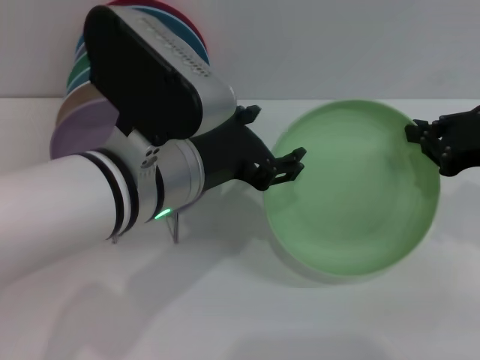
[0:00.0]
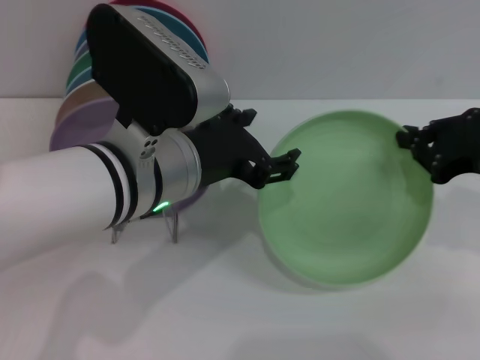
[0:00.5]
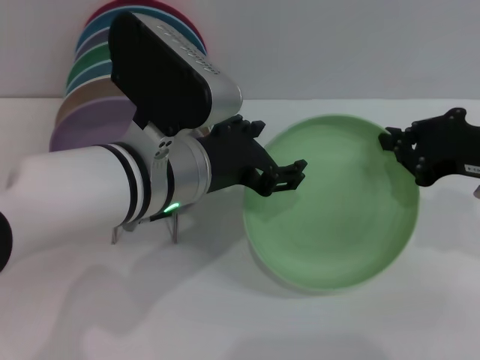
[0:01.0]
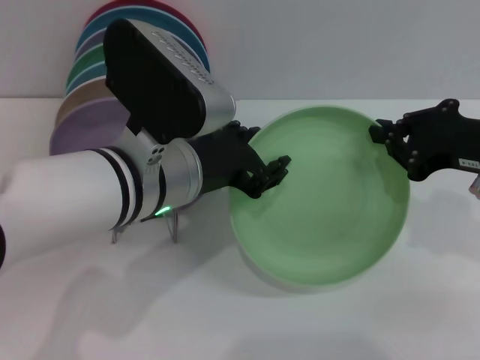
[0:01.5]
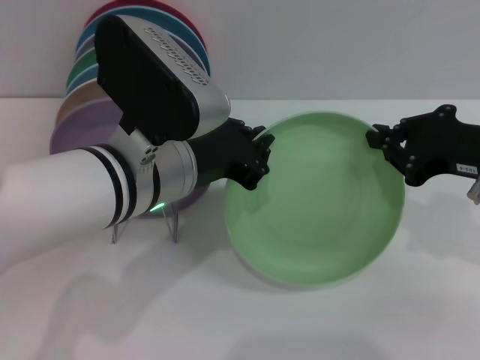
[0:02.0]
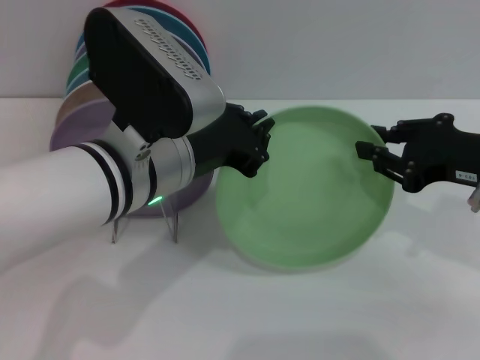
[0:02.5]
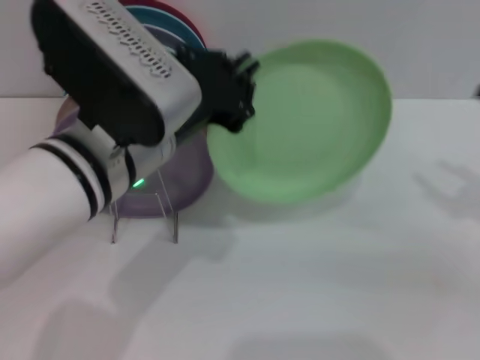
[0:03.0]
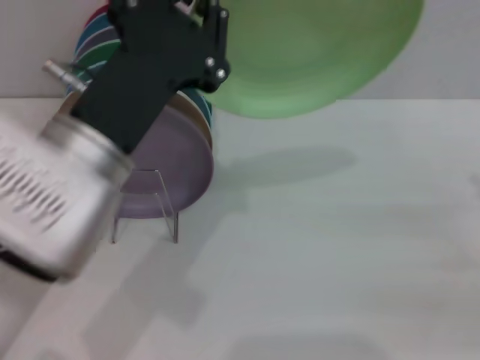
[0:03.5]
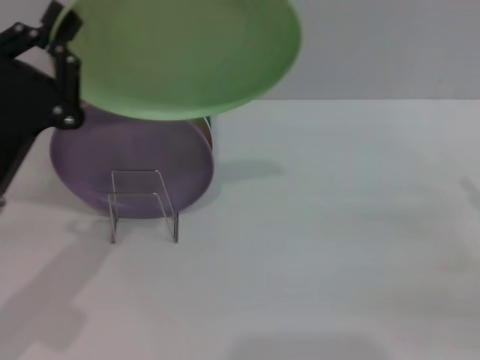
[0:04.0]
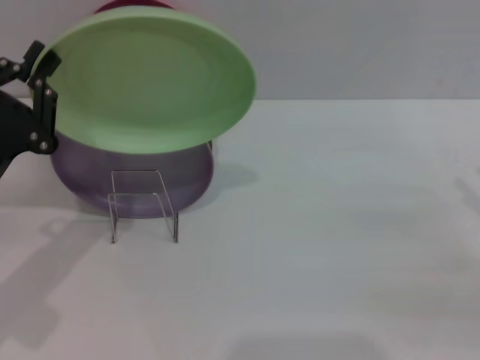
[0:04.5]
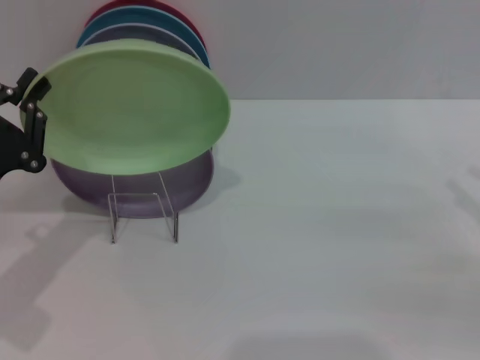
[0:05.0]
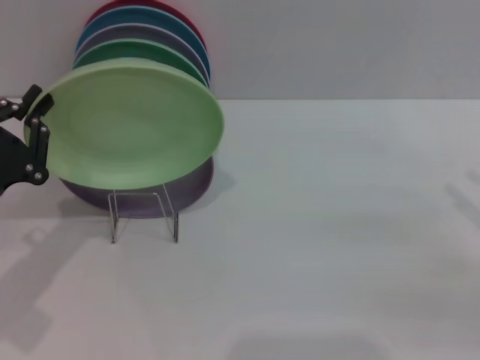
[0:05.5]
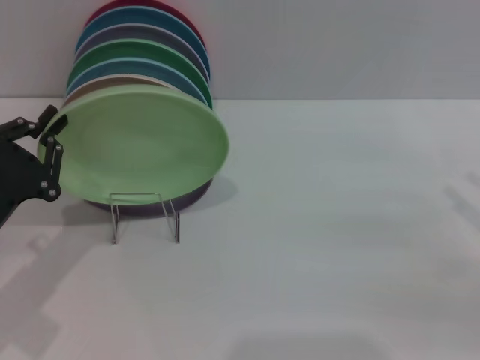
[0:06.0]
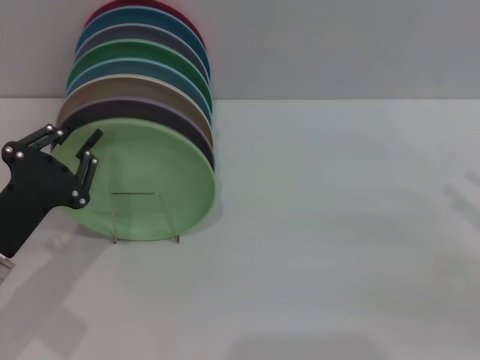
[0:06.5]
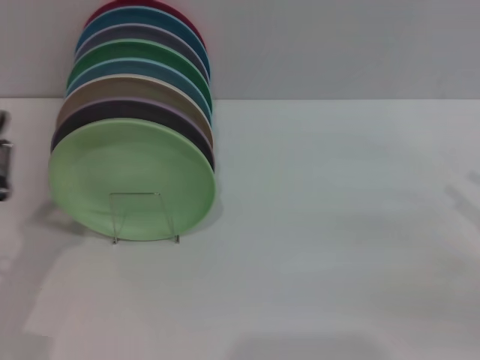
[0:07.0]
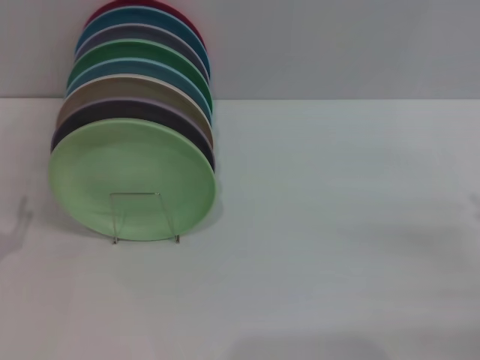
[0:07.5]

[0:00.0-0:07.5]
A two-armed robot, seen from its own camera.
Task of the whole recording: Grip the plate with one hand, pass it to the other, then set it on the shelf.
Step, 0:00.0 to 0:02.5: Pass the plate from the right gripper to the left gripper.
Step, 0:03.0 to 0:06.5: Place the plate on the shelf with the left gripper.
0:00.0 to 0:02.0: The left gripper closes up.
0:02.0 to 0:04.0: The right gripper is displaced to the right and backward by roughly 15 cm, and opens; the left gripper shifts about 15 cm to the left.
0:04.0 to 0:05.5: The left gripper is displaced to the left by about 5 cm.
0:05.5 to 0:07.5: The left gripper is displaced backward by approximately 5 cm, and opens, while the right gripper moves about 5 cm.
